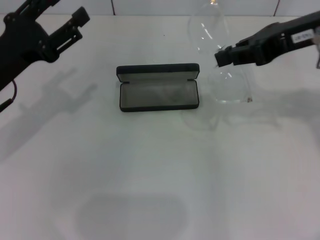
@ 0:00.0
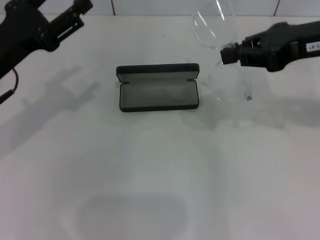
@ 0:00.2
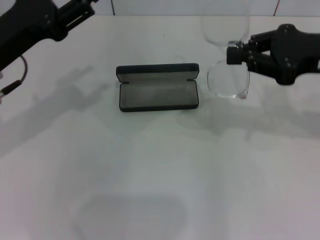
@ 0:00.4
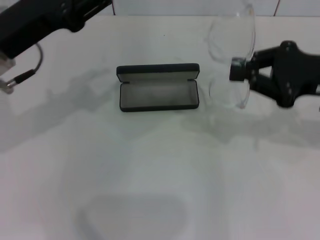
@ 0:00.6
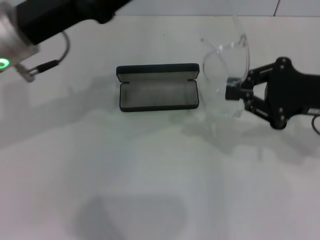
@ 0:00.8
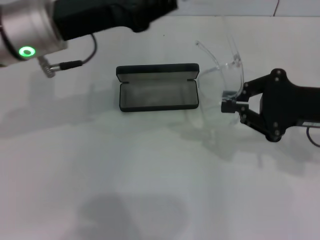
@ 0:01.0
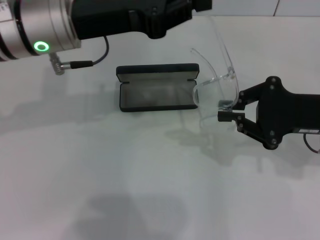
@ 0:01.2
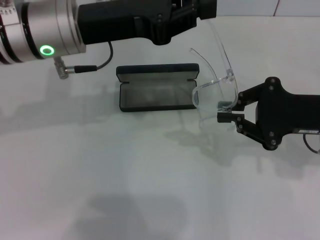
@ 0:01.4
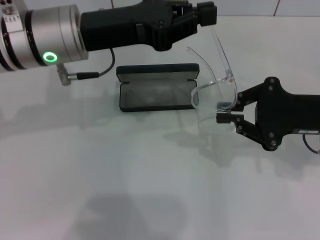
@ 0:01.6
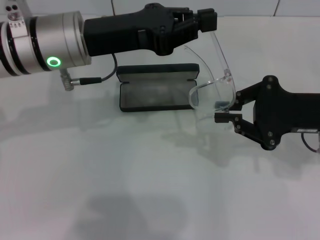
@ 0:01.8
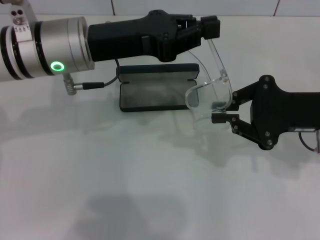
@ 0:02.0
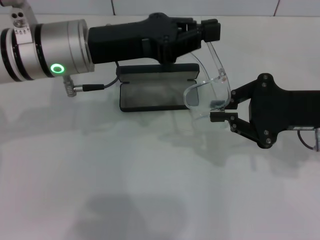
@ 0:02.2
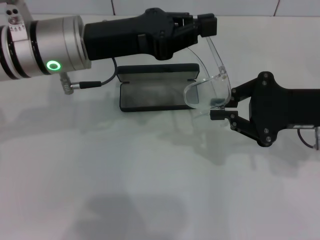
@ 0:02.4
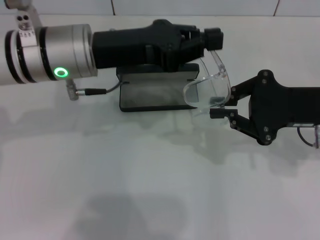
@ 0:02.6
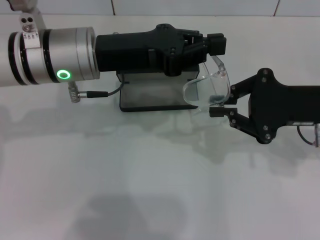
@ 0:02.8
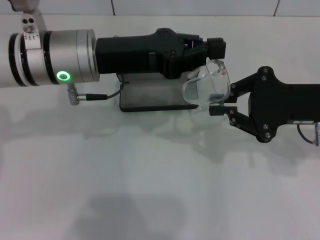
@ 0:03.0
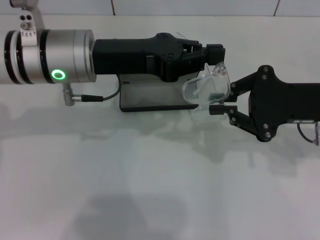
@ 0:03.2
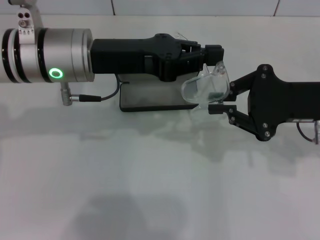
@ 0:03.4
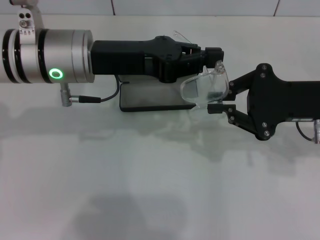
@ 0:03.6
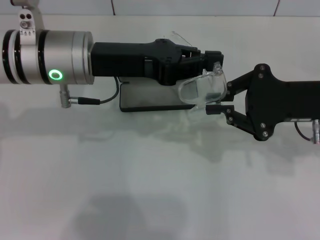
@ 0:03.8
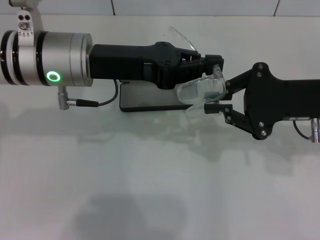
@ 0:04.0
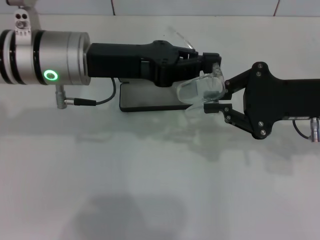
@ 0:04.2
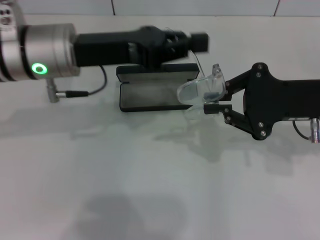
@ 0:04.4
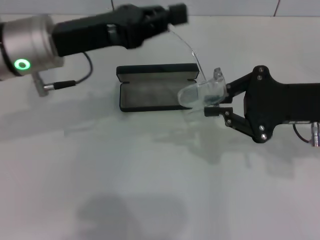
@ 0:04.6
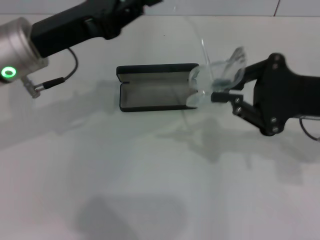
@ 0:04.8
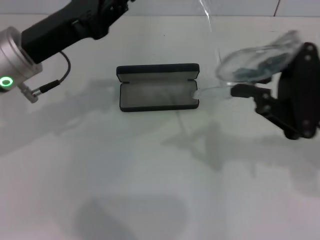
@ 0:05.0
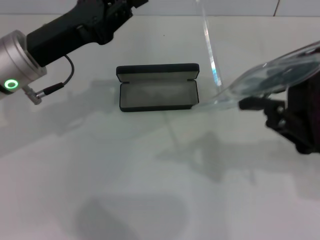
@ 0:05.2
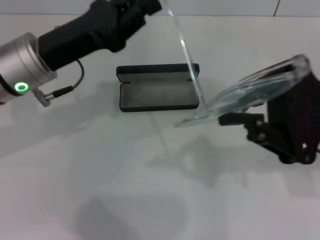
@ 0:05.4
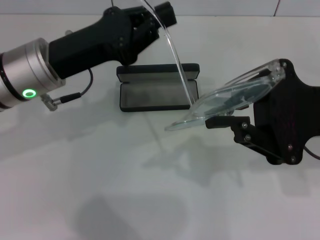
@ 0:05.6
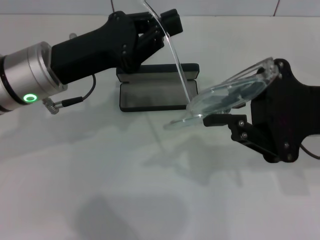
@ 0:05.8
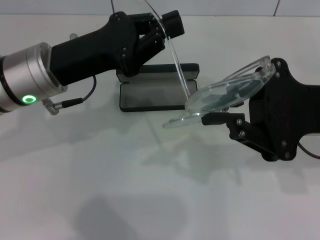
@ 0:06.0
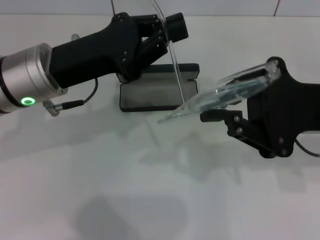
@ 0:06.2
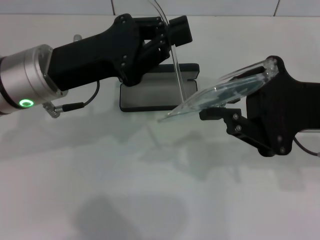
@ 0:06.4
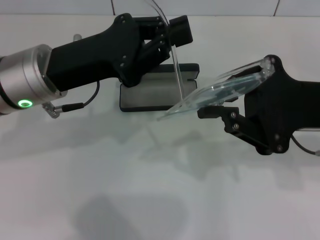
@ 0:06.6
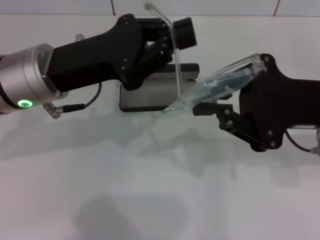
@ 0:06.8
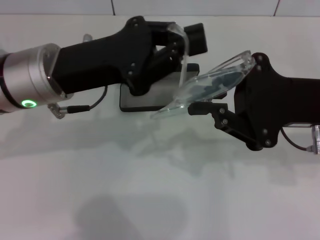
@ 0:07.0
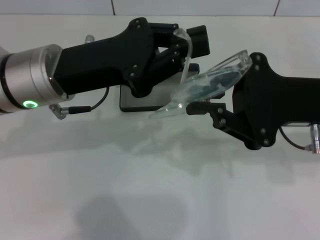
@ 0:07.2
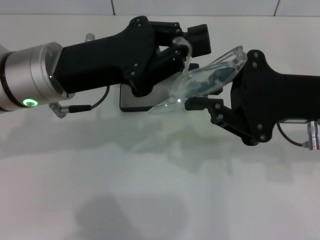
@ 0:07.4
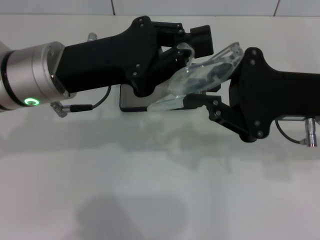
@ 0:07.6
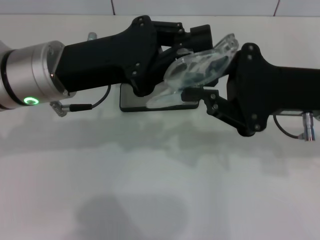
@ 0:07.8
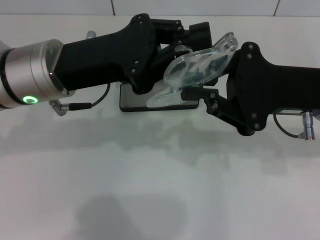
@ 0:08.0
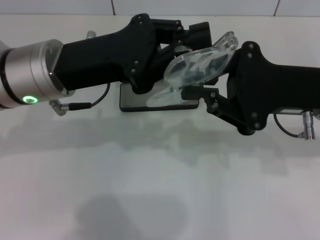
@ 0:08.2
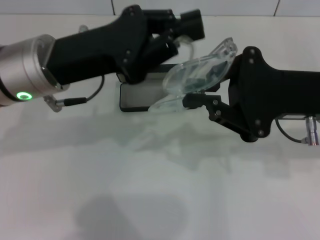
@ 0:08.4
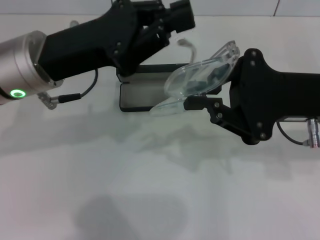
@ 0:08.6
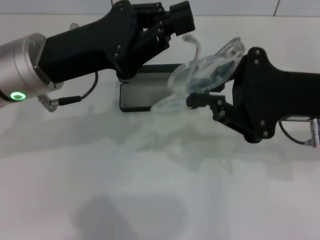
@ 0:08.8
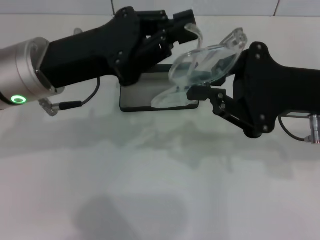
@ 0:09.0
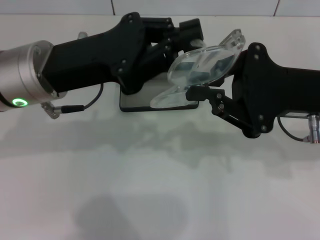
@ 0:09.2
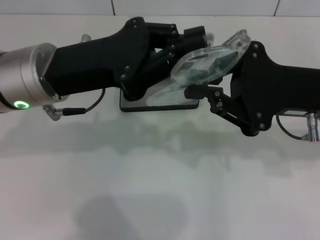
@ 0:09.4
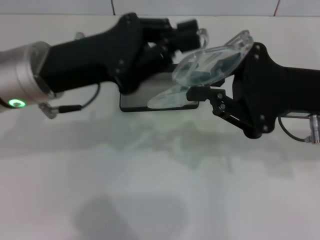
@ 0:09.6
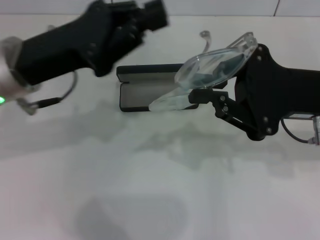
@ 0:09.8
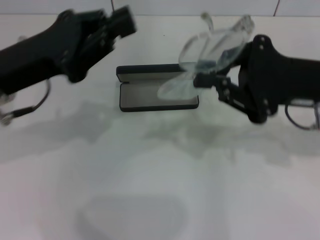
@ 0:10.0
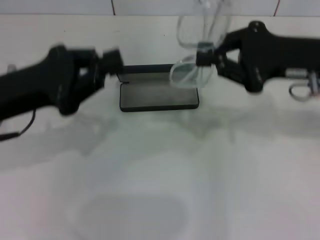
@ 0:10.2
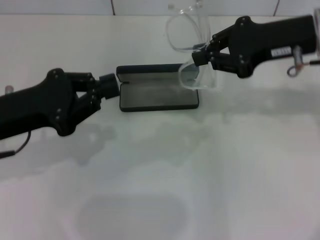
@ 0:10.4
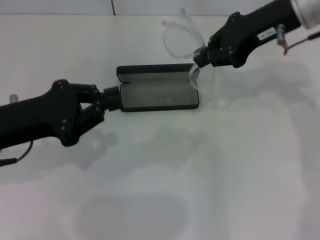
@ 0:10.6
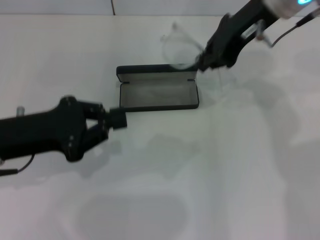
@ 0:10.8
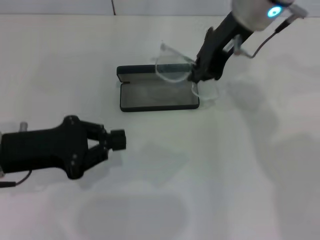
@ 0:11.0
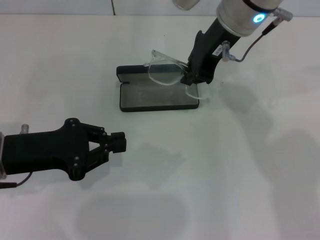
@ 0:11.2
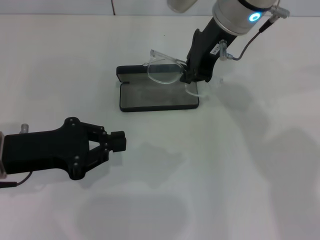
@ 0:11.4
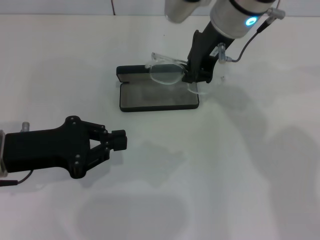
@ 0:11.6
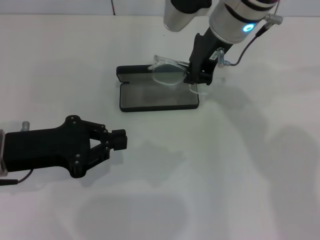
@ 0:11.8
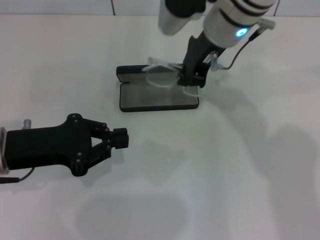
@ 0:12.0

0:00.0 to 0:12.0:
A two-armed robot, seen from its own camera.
Step, 0:00.0 to 0:09.4: Fold the frame with your left hand.
0:00.0 to 0:01.6: The left gripper travels to the right, upward and forward by about 15 cm, and closes; the right gripper heads downward, covering about 15 cm.
0:03.0 to 0:04.4: The grippers make only small movements.
0:07.6 to 0:09.0: There are only small adjustments of the grippers.
0:09.0 to 0:10.4: The right gripper shifts roughly 5 cm forward. Meanwhile the left gripper goes roughly 10 cm to the left.
0:10.4 to 0:12.0: The right gripper goes approximately 15 cm to the left.

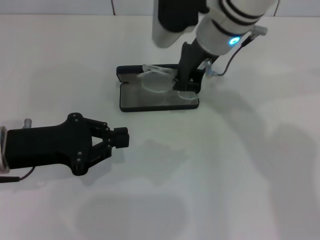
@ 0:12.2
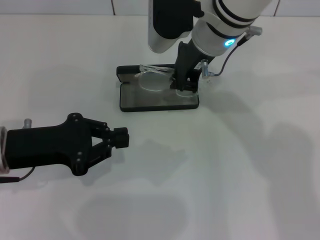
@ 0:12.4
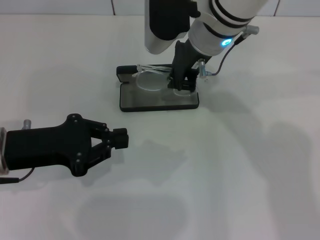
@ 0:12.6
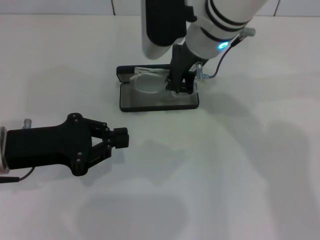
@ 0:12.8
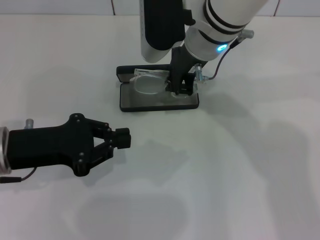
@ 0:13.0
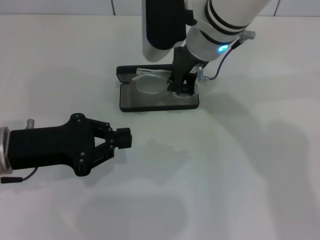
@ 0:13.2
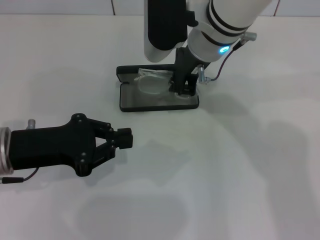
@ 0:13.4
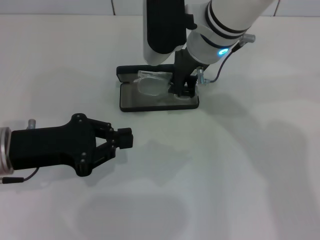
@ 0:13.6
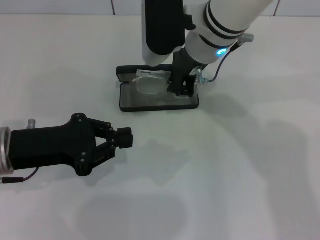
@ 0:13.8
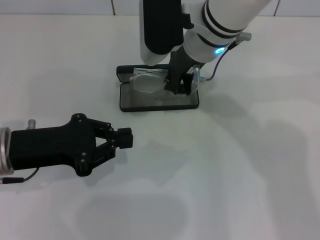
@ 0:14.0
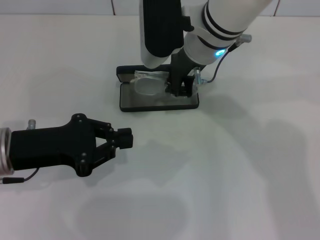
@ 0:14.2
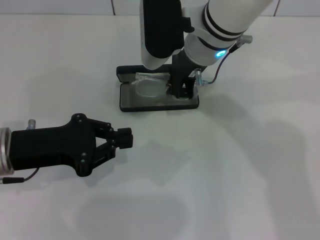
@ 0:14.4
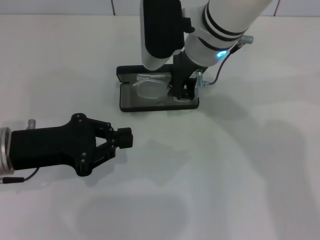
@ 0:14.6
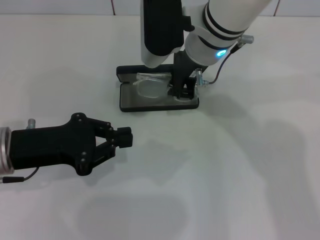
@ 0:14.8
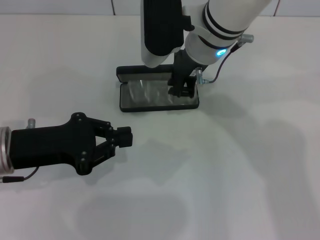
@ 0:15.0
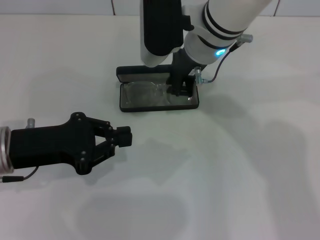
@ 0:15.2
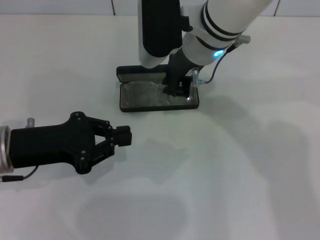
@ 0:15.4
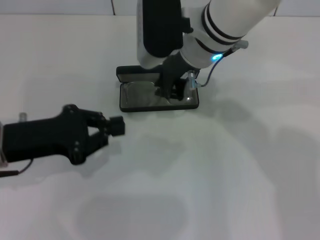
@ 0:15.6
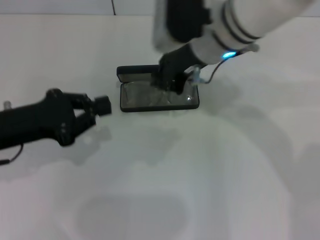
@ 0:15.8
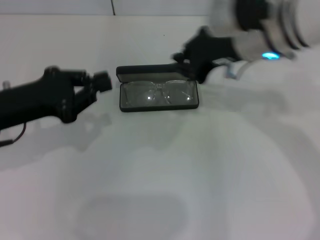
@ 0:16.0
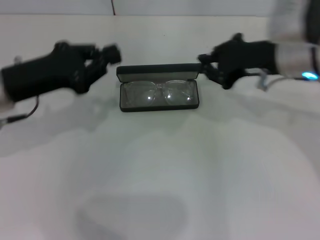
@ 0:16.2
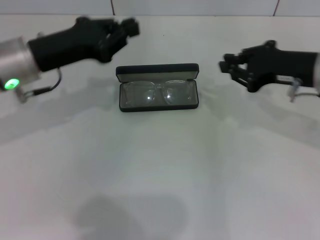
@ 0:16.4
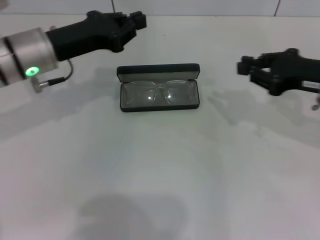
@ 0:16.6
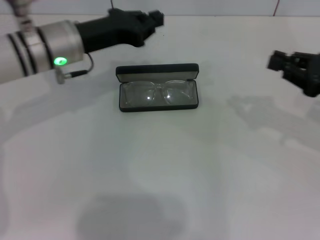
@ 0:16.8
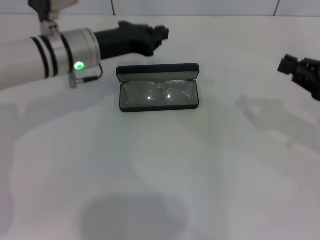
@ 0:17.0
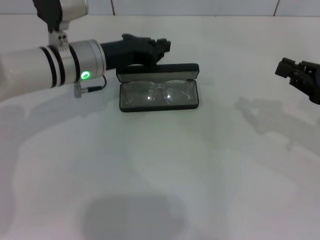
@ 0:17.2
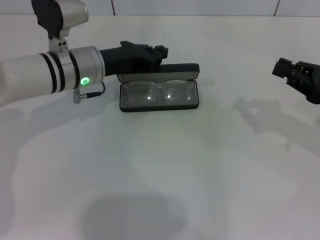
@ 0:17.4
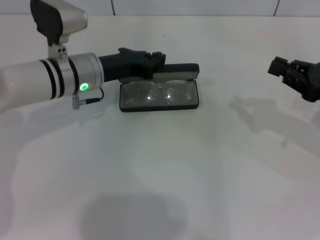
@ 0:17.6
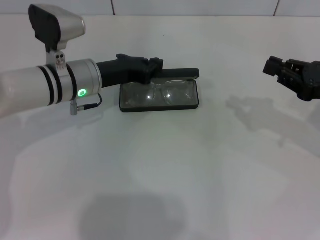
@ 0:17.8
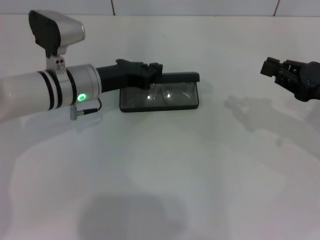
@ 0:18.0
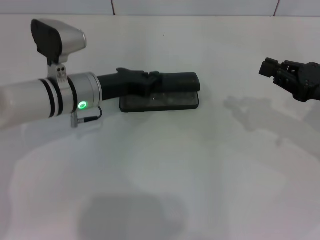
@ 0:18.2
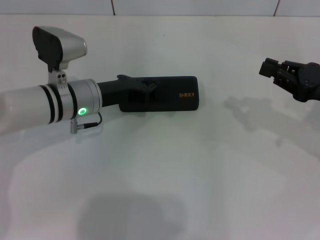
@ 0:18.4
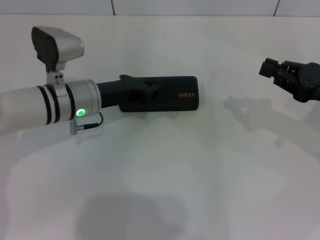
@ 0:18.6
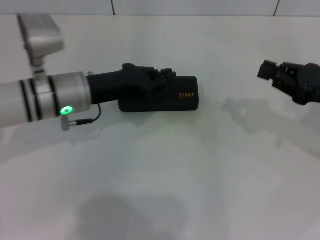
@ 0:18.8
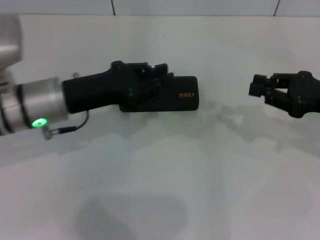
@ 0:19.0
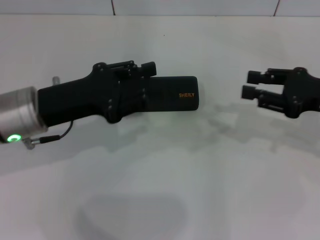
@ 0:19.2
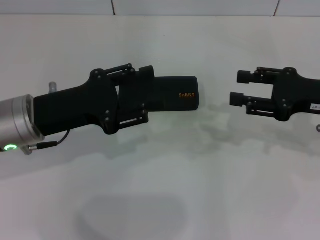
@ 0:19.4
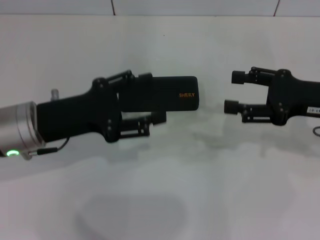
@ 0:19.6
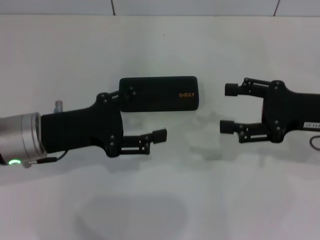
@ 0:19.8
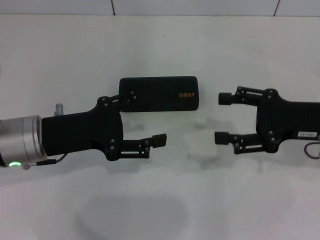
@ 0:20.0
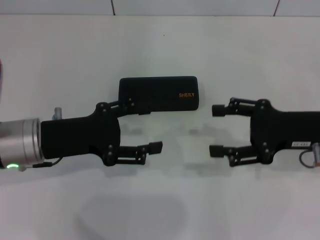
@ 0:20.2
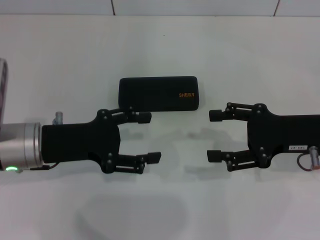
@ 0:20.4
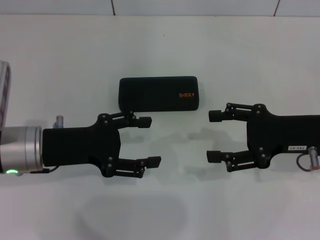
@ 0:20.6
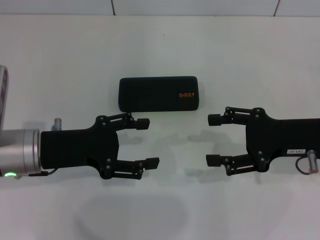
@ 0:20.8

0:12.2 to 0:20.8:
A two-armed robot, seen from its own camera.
Step, 0:12.2 to 0:15.0: Put the glasses into the case with your right hand.
Step, 0:15.2 to 0:18.2: Close the glasses case with your left hand.
0:12.2 to 0:13.6: There are only small adjustments of the grippers.
0:13.6 to 0:15.0: Both grippers stay about where they are.
0:15.0 to 0:16.6: The left gripper moves forward, approximately 10 cm, while the right gripper heads to the right, covering roughly 25 cm.
0:16.6 to 0:18.0: The right gripper moves roughly 5 cm. Meanwhile the left gripper travels downward by approximately 5 cm.
0:18.0 to 0:19.4: The left gripper is displaced backward and to the left by approximately 10 cm, and opens.
0:19.4 to 0:20.8: The left gripper opens up, while the right gripper opens its fingers.
